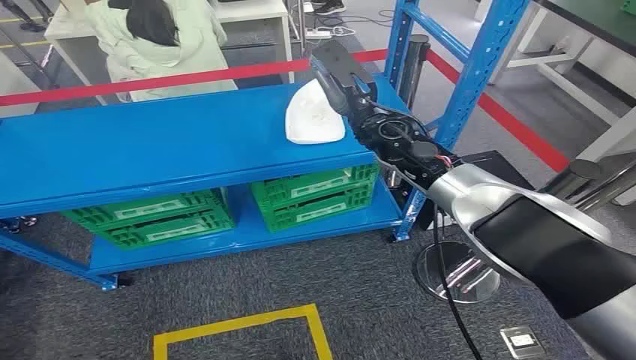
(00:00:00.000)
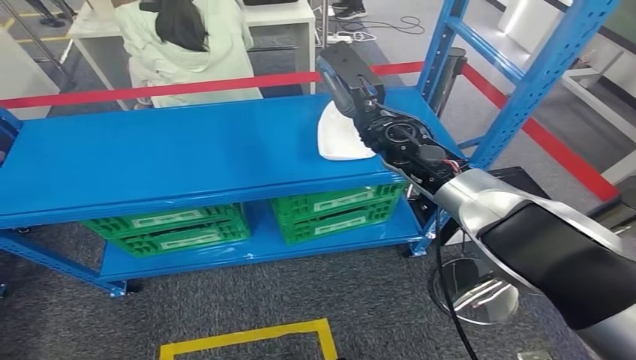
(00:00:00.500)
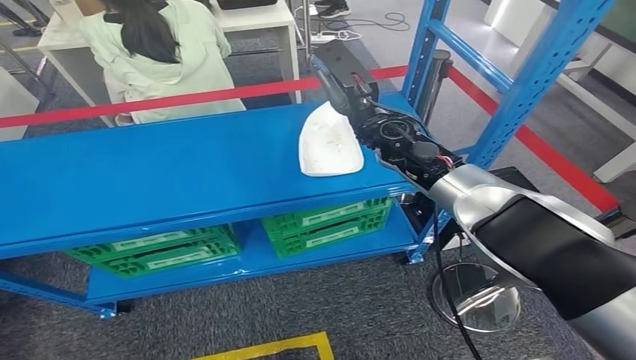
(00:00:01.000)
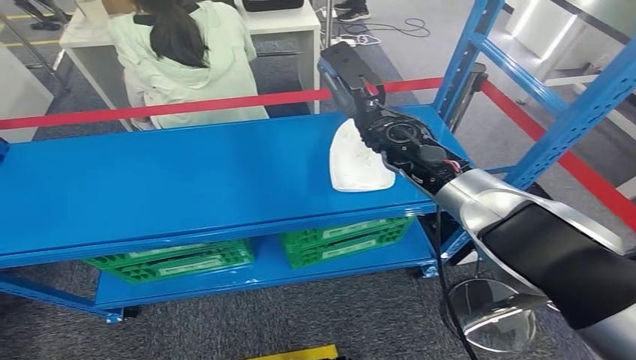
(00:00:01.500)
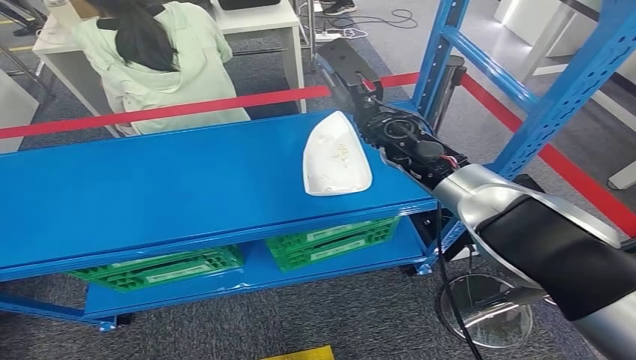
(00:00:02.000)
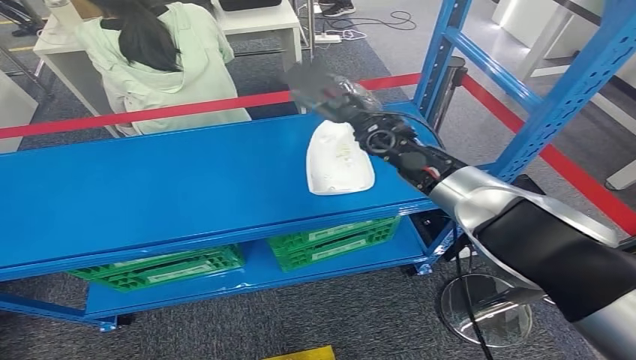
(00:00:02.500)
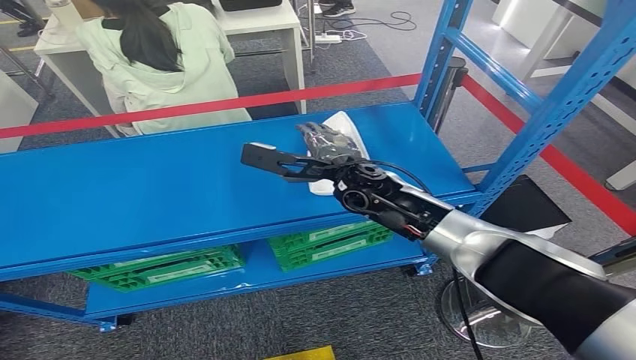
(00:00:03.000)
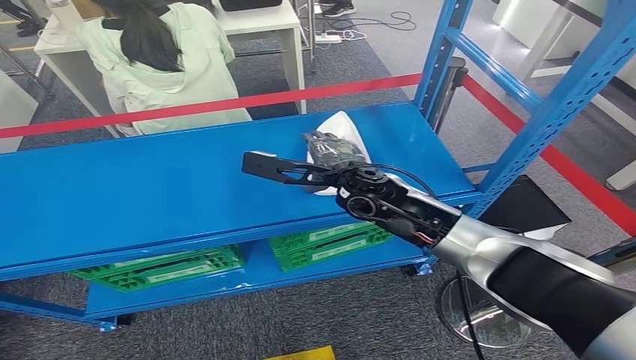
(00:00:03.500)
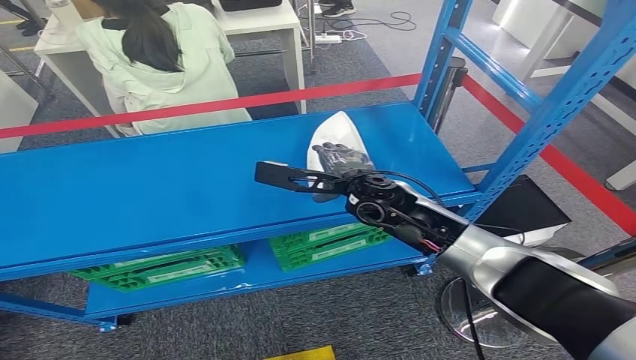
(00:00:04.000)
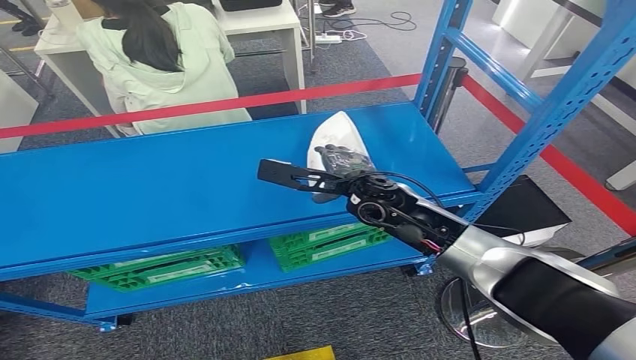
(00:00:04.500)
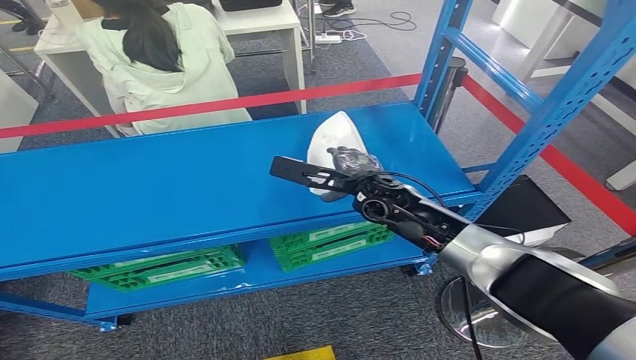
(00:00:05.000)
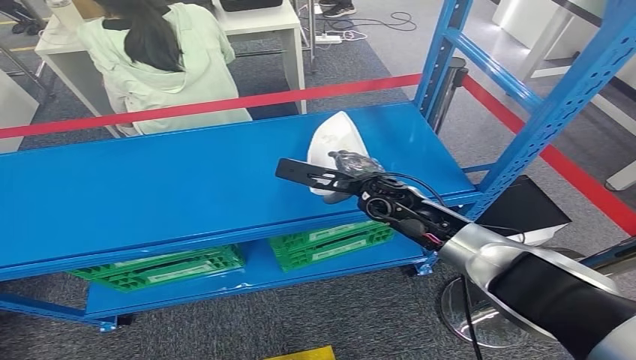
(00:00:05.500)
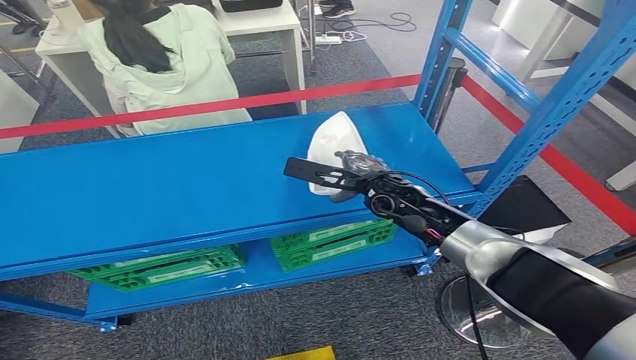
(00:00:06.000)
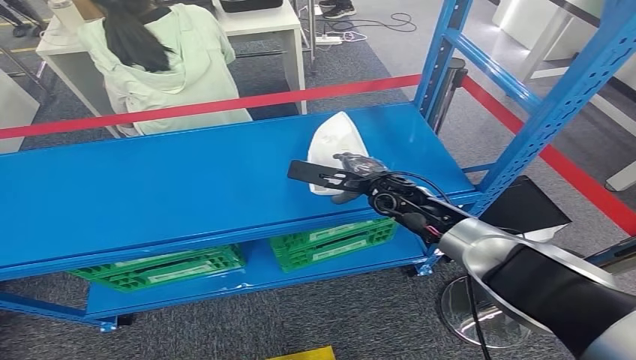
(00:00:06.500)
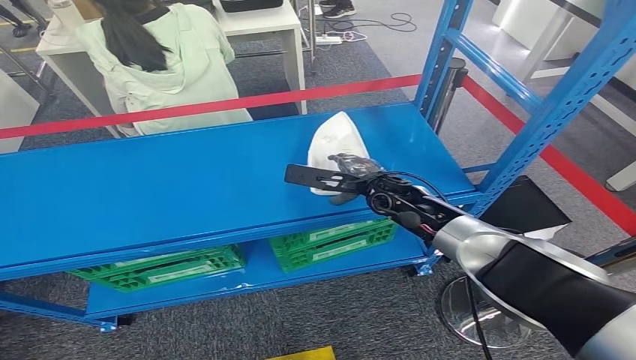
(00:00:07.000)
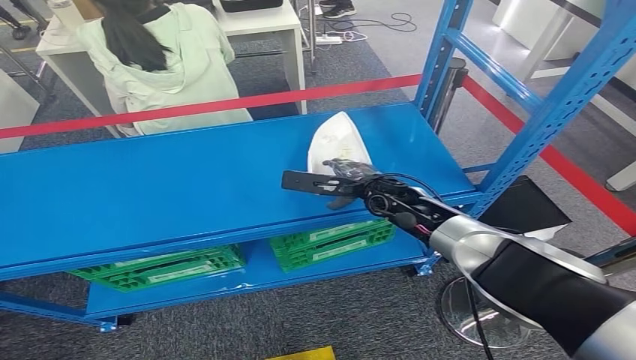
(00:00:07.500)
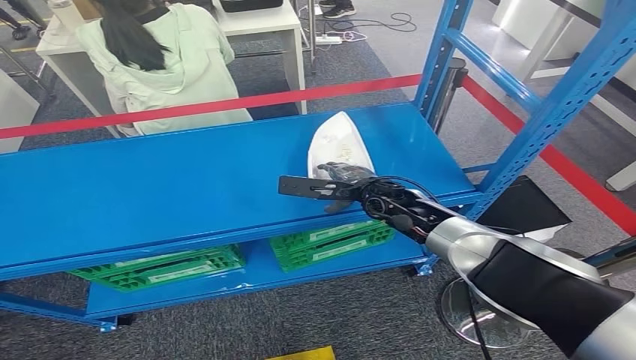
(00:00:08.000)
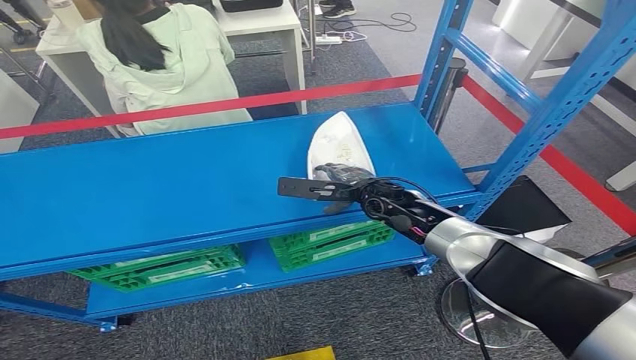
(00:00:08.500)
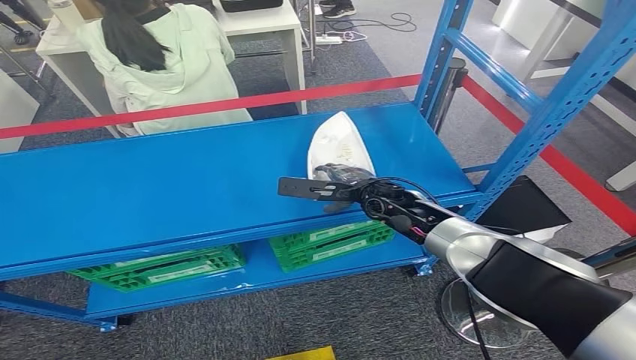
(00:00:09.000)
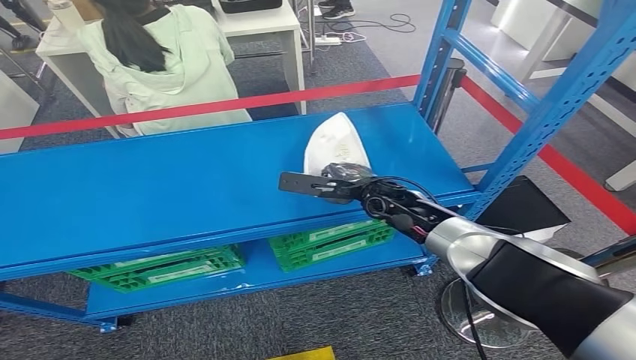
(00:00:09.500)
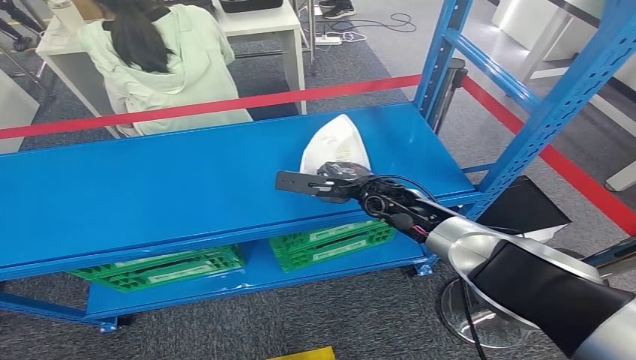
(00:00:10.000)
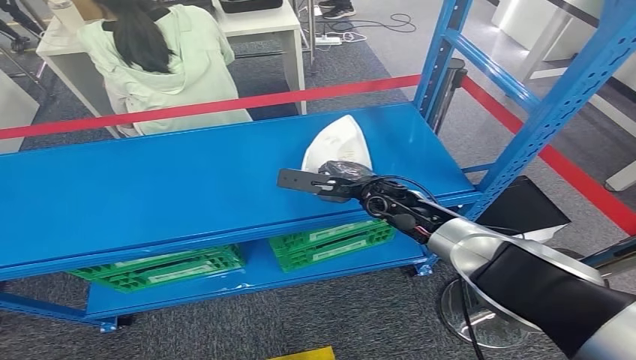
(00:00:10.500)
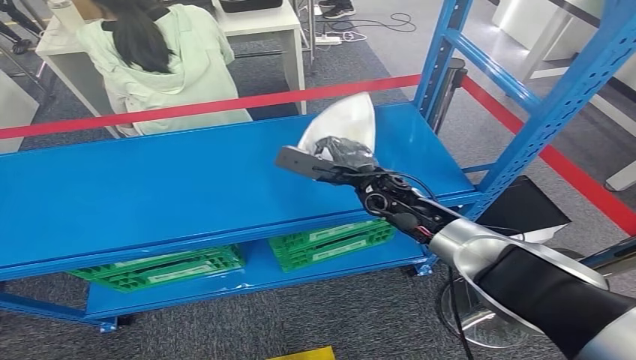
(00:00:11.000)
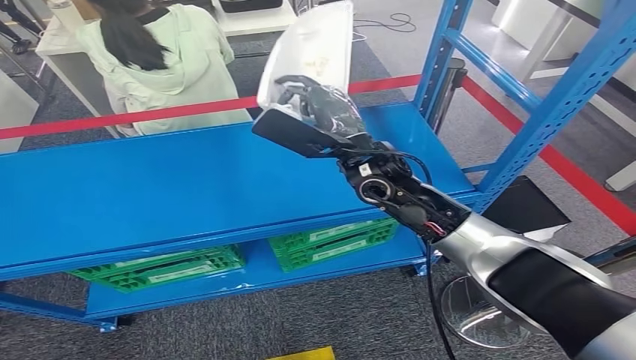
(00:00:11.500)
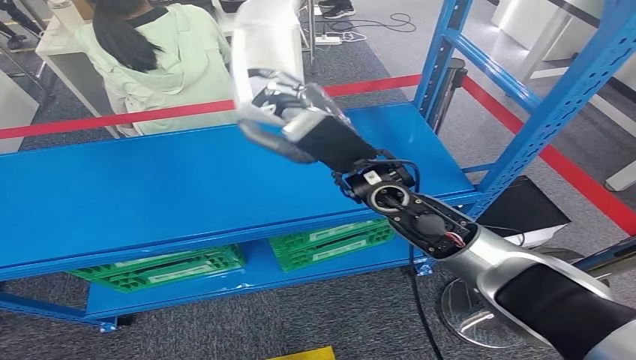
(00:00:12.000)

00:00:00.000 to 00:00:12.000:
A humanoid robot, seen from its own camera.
00:00:02.000 to 00:00:04.000: The right hand moves backward, downward and to the left, approximately 15 cm.
00:00:04.000 to 00:00:06.000: The right hand changes place by some 5 cm.
00:00:06.000 to 00:00:08.000: The hands move only a little.
00:00:08.000 to 00:00:10.000: Neither hand changes place.
00:00:10.000 to 00:00:12.000: The right hand shifts some 15 cm upward and backward.

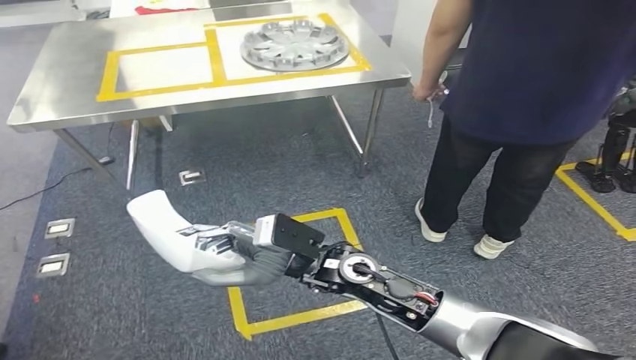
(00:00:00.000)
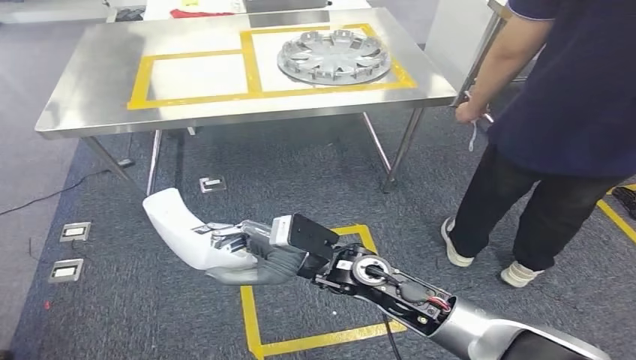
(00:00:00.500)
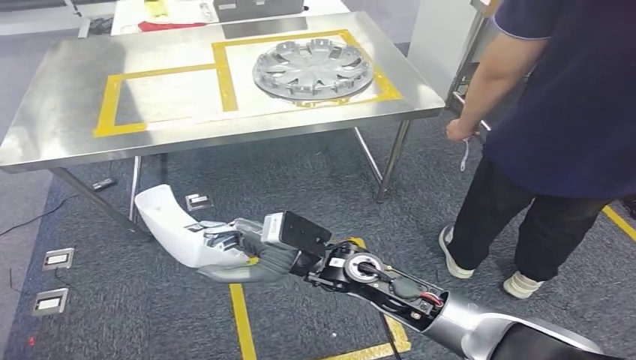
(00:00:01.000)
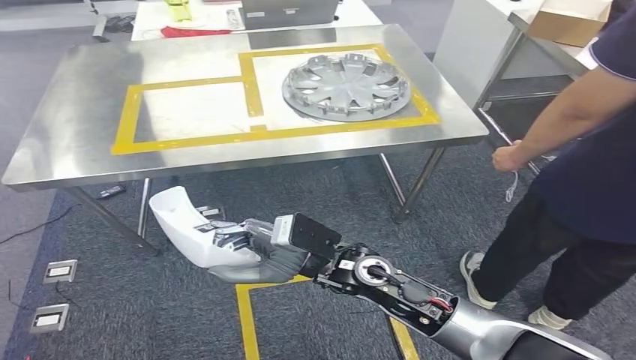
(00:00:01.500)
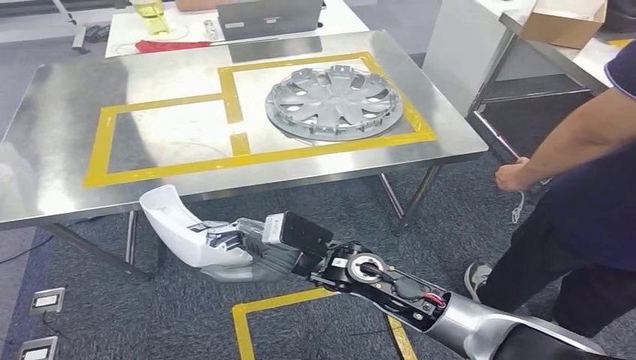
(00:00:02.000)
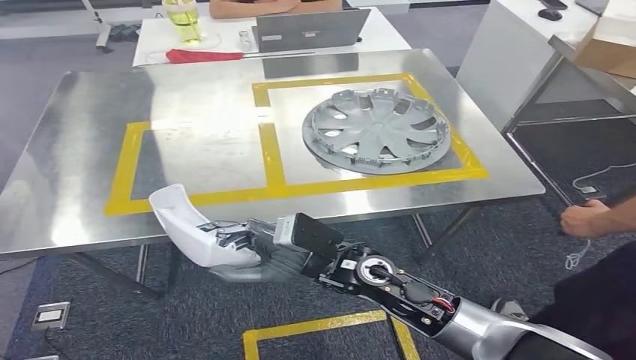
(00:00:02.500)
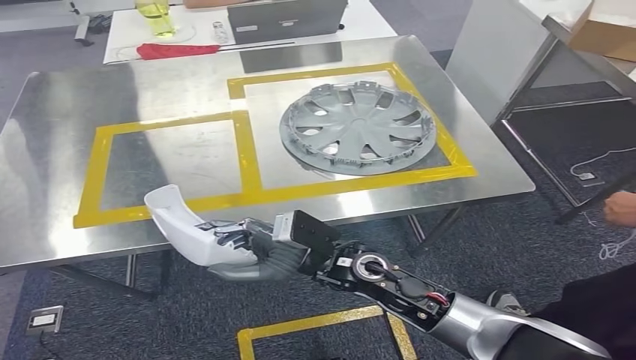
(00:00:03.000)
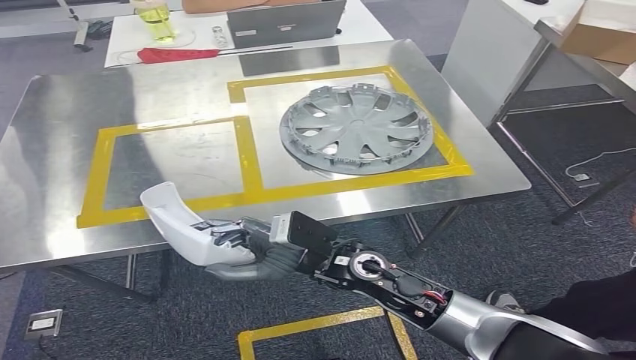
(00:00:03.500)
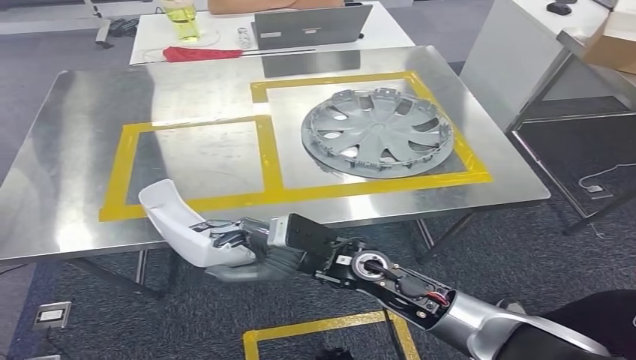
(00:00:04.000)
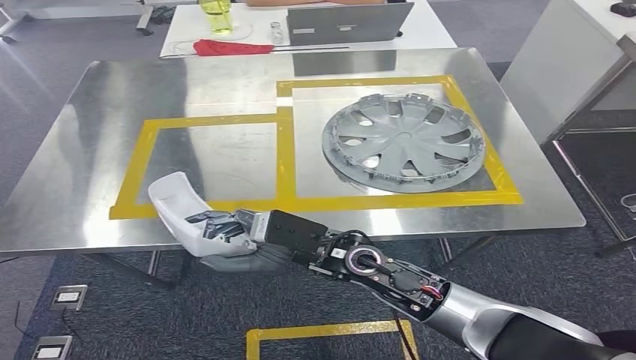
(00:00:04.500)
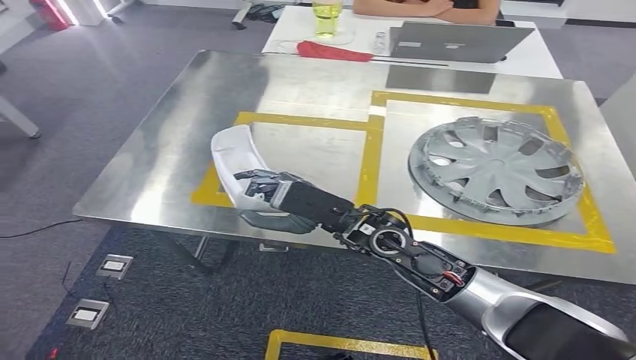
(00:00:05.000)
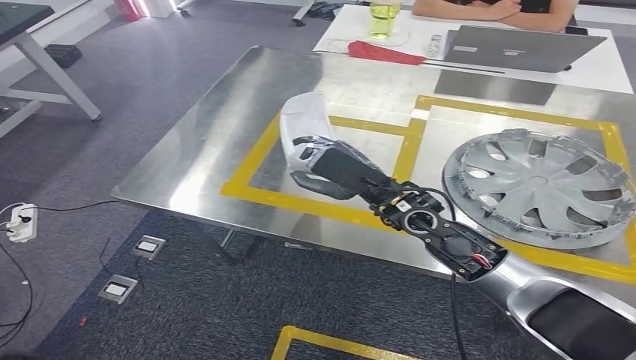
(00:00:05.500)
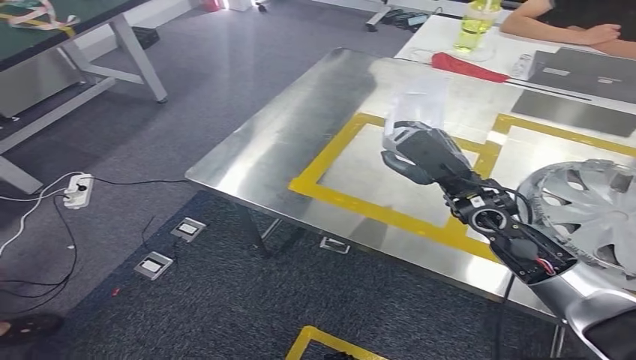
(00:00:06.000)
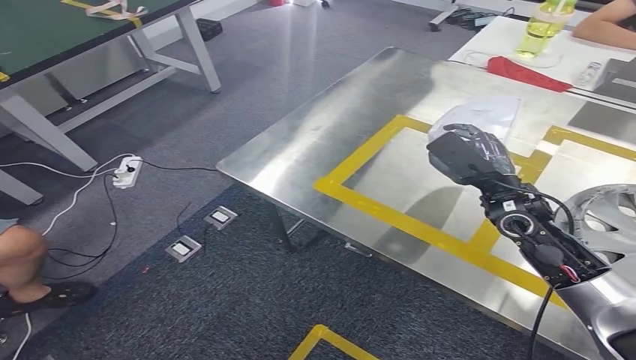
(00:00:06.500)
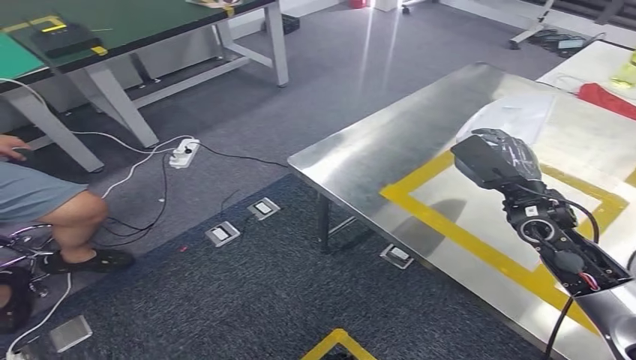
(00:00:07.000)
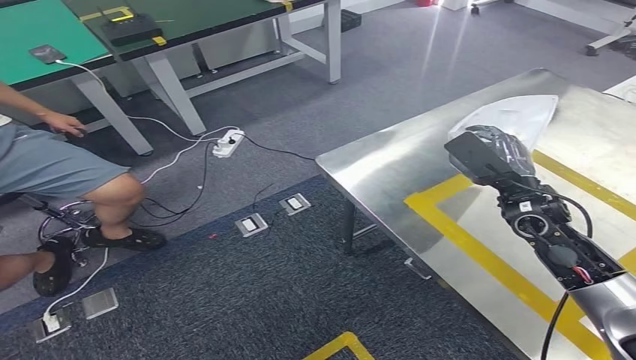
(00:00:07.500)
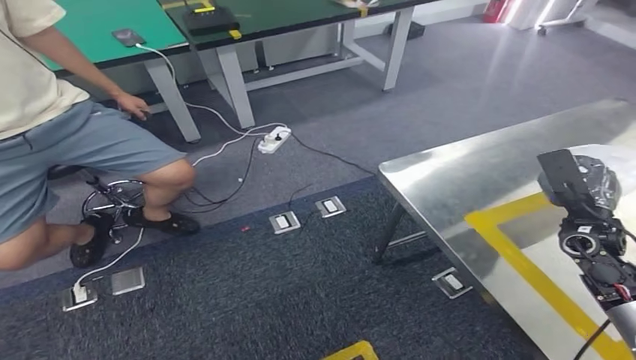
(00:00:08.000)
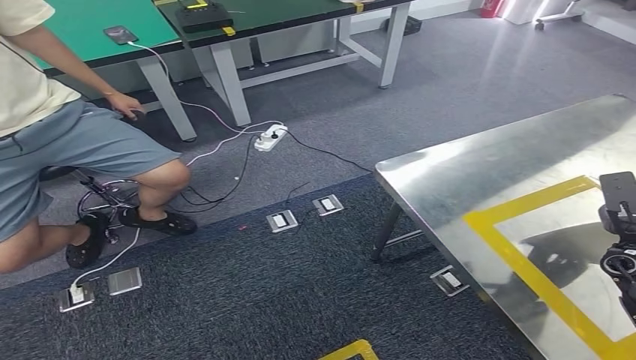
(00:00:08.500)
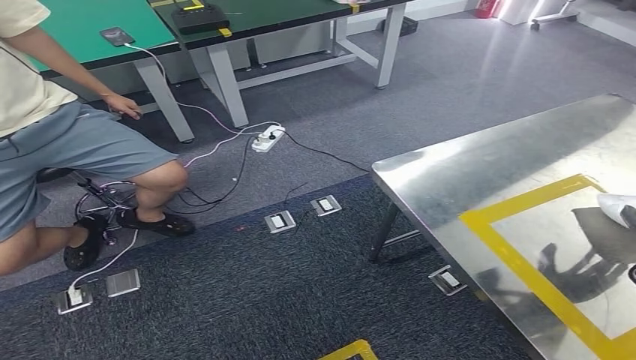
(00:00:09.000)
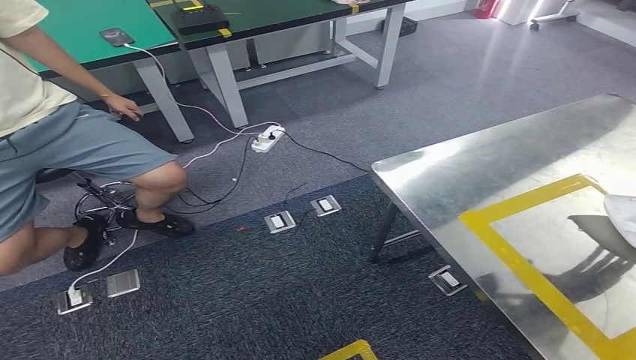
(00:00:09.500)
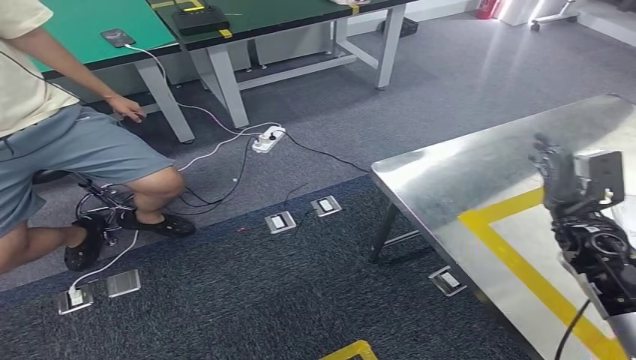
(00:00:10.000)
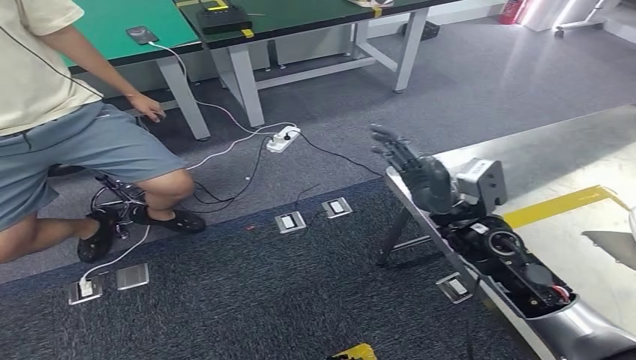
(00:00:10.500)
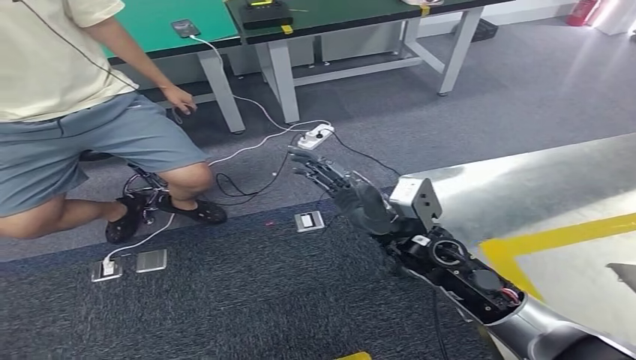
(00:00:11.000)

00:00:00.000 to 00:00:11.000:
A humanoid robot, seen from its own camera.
Step, 00:00:00.000 to 00:00:04.000: Move the small component to the workbench.
